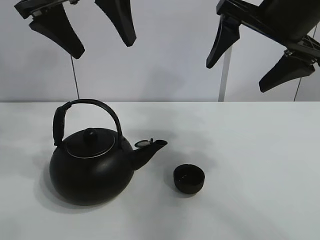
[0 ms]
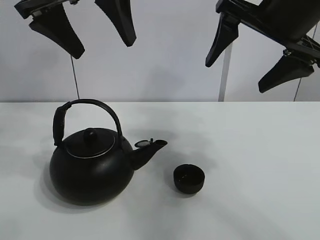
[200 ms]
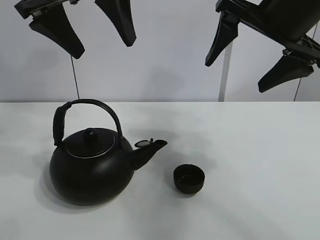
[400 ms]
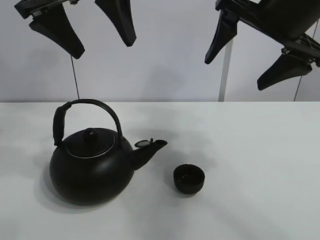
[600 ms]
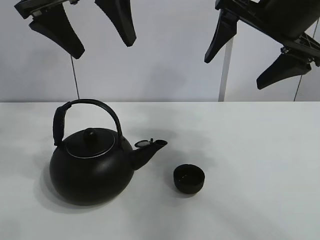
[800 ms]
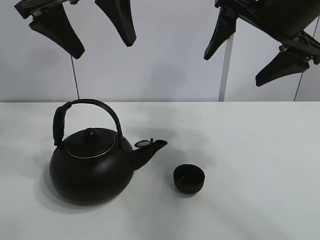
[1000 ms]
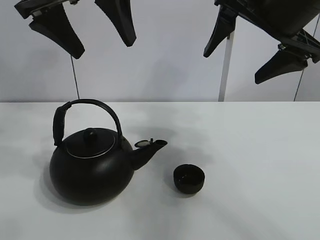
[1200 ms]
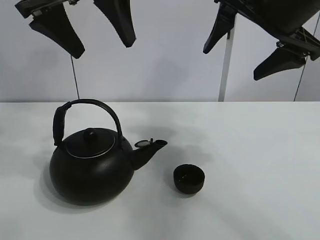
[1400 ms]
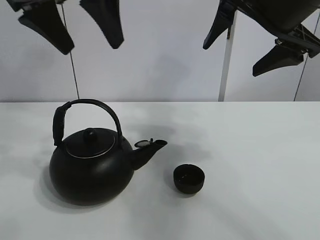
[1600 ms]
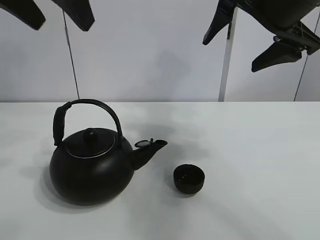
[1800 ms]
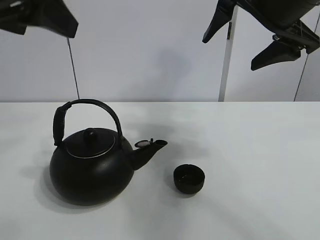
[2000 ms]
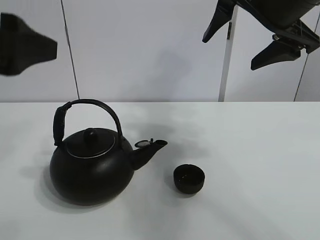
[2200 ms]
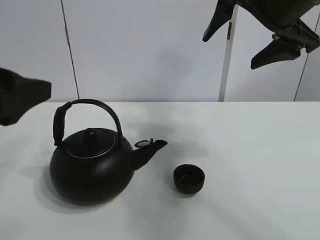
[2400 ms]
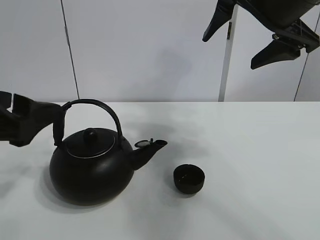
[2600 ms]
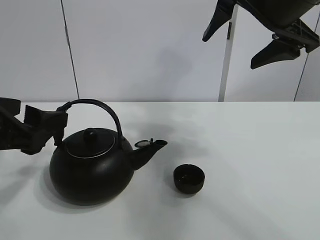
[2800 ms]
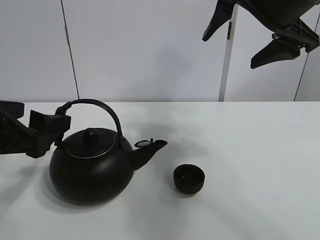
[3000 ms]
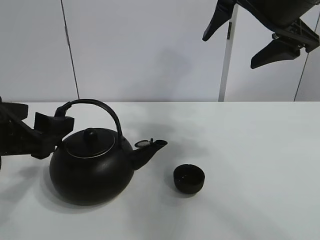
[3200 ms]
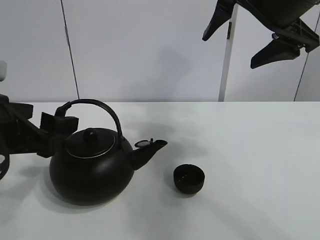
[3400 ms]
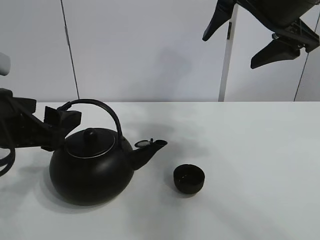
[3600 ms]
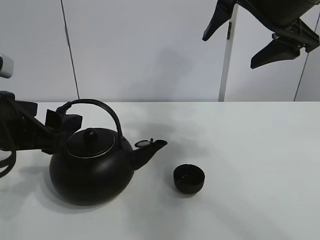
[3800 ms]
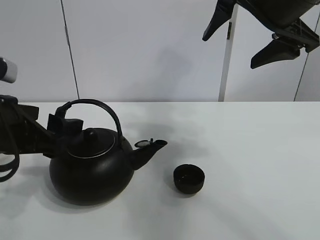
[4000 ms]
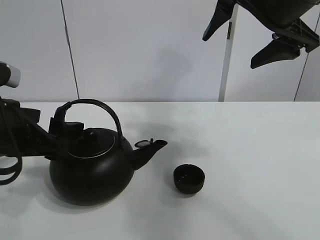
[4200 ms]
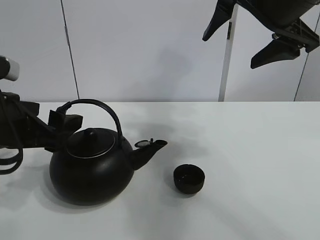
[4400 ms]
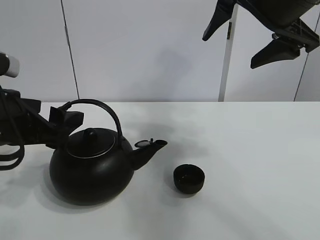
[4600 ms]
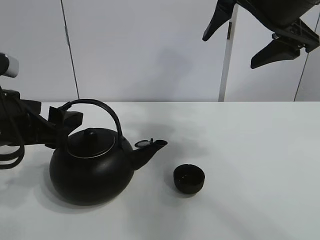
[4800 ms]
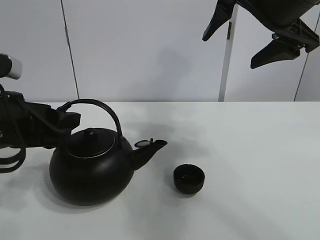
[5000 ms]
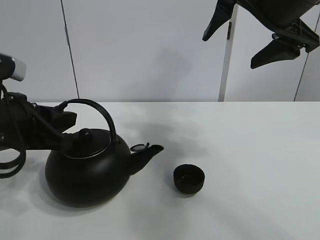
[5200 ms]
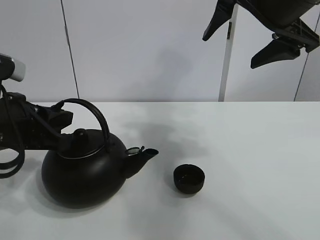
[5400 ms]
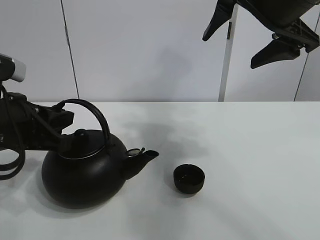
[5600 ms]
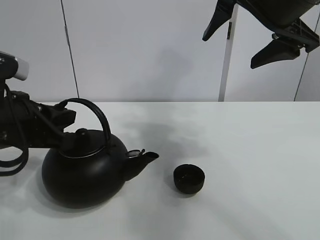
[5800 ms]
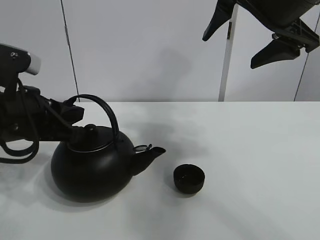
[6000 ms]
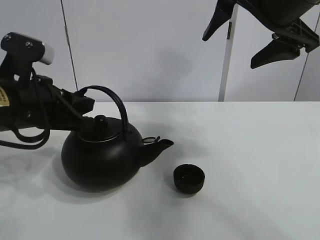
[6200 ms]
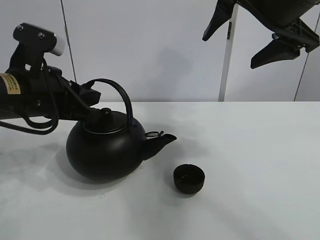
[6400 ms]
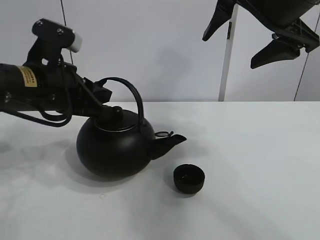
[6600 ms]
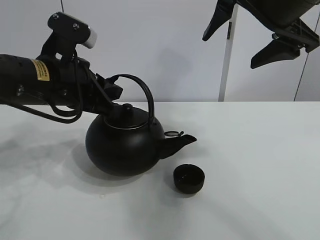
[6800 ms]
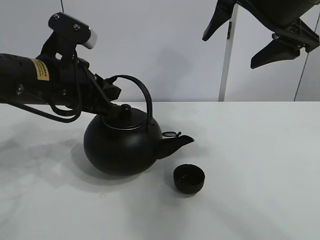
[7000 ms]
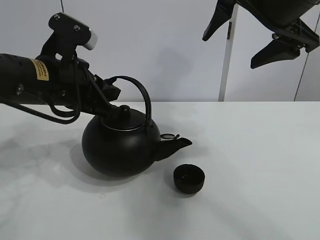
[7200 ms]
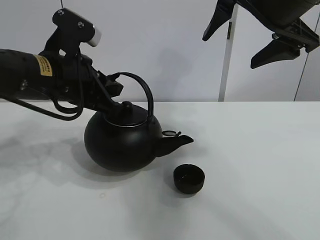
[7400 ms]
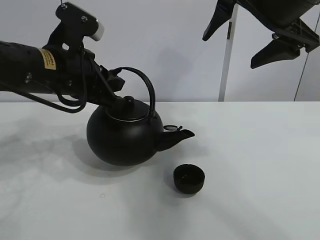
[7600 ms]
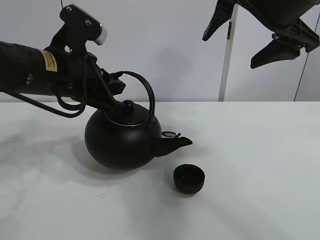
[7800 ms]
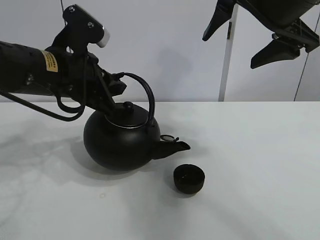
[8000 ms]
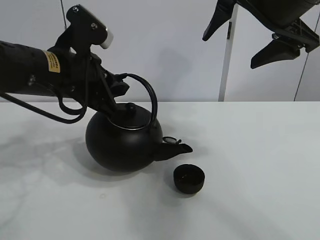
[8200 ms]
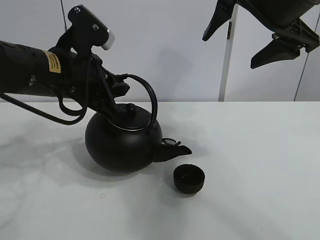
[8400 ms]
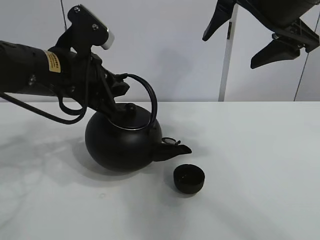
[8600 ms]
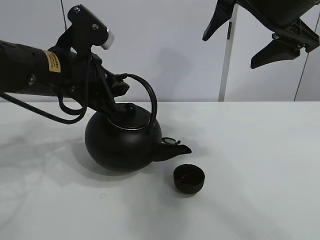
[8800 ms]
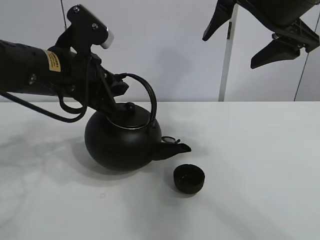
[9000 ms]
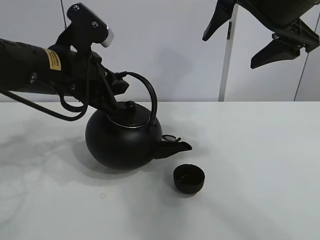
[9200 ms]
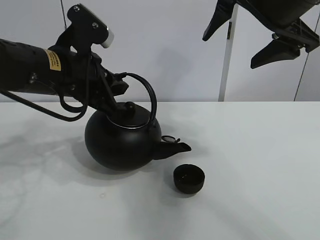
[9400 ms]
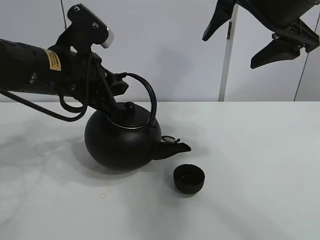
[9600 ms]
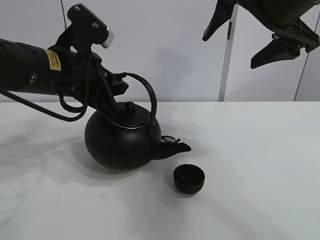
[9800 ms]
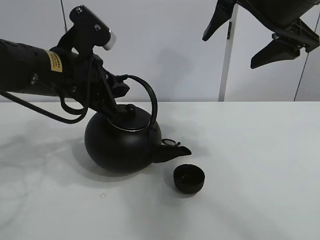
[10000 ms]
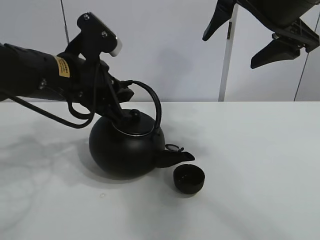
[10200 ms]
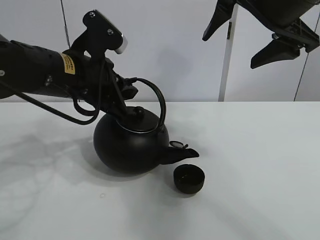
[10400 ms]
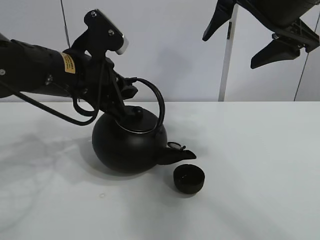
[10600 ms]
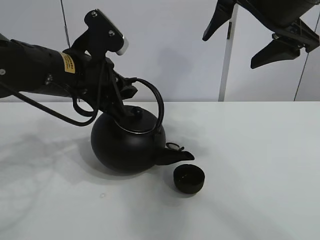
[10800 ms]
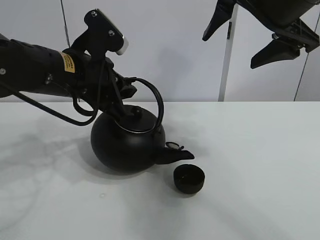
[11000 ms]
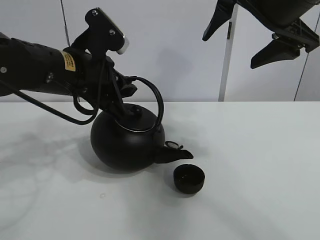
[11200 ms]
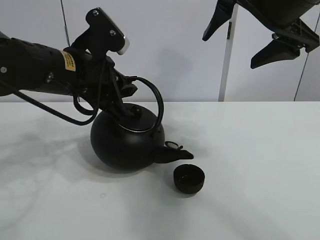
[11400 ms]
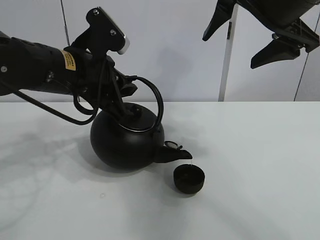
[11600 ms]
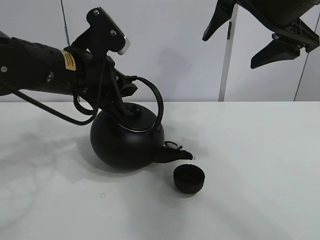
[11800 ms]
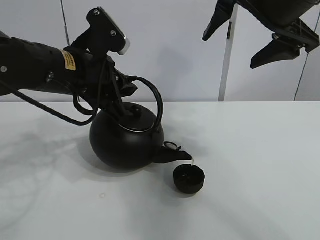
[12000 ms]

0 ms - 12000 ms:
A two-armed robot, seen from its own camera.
Task of the whole recording: pour tea into the teacup.
Step, 0 ms - 5200 ms: Pick up the teapot with the left gripper.
0 ms - 1600 ms: The grippers stay close to where they were, moving slightly.
1600 ms - 3000 ms: The left gripper goes approximately 25 cm downward, backward and to the left.
3000 ms - 4400 ms: The grippers move only a little.
4400 ms - 6000 ms: The left gripper closes up.
6000 ms - 7600 ms: The left gripper moves to the right and forward, about 10 cm.
7600 ms - 12000 ms: The grippers move only a little.

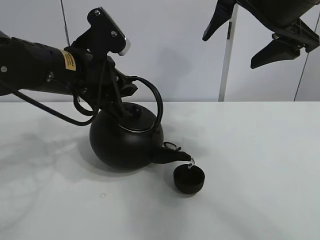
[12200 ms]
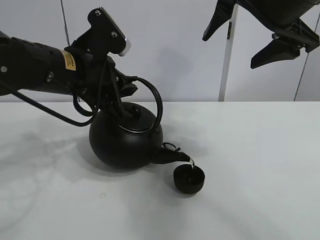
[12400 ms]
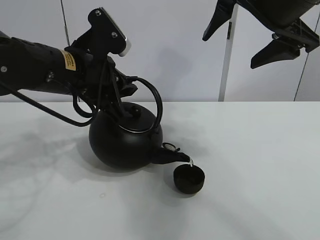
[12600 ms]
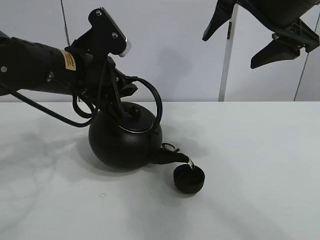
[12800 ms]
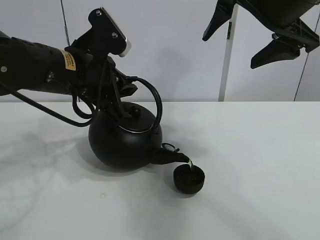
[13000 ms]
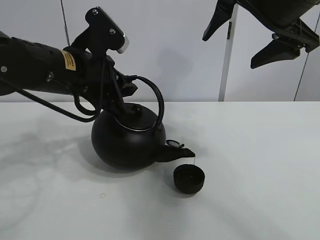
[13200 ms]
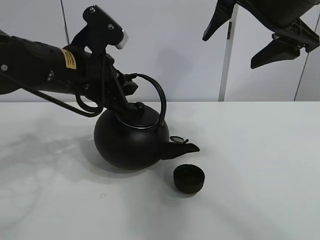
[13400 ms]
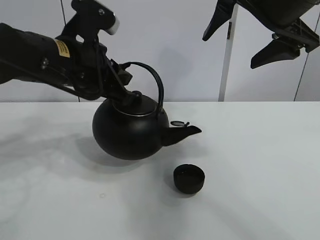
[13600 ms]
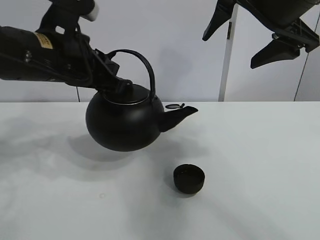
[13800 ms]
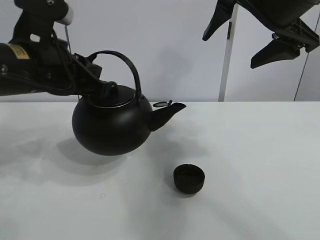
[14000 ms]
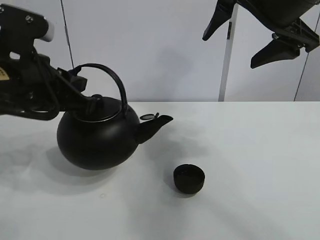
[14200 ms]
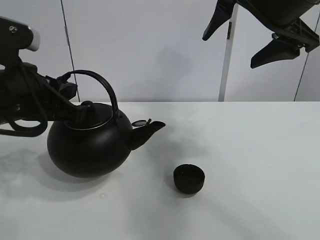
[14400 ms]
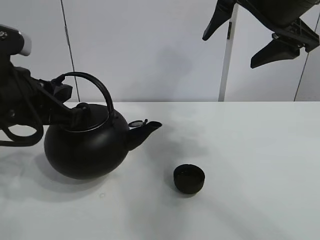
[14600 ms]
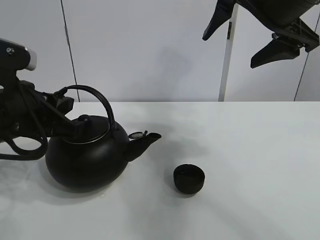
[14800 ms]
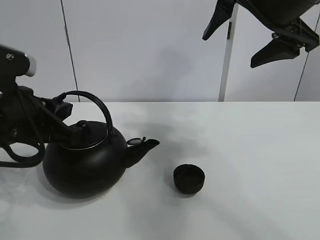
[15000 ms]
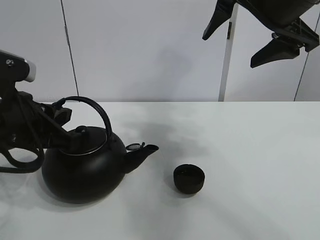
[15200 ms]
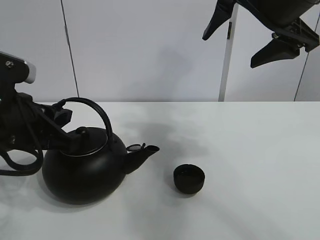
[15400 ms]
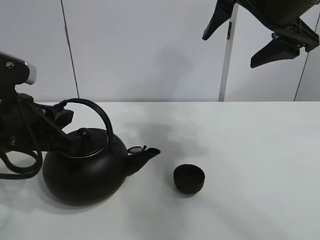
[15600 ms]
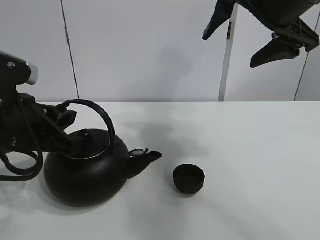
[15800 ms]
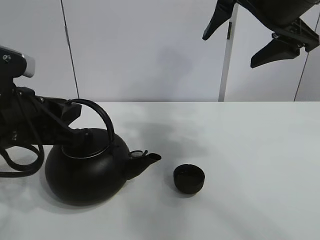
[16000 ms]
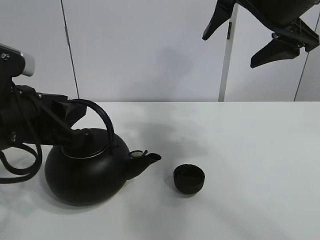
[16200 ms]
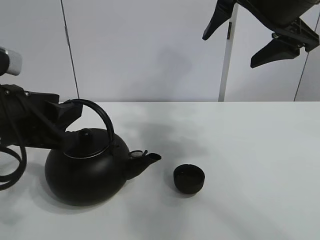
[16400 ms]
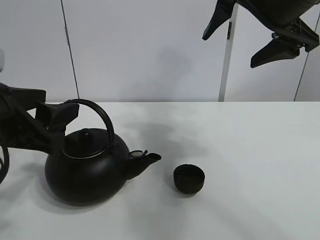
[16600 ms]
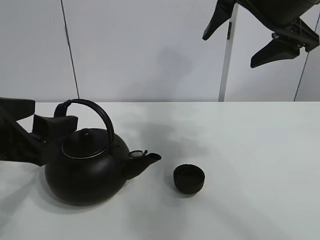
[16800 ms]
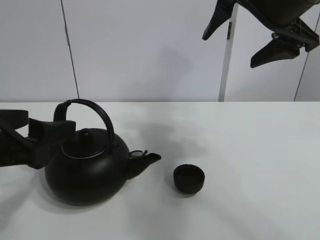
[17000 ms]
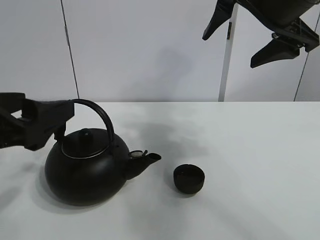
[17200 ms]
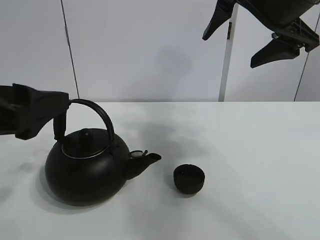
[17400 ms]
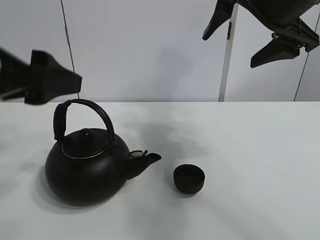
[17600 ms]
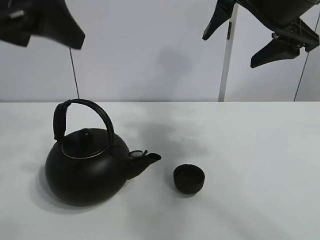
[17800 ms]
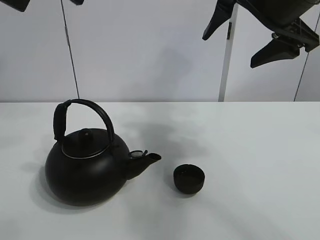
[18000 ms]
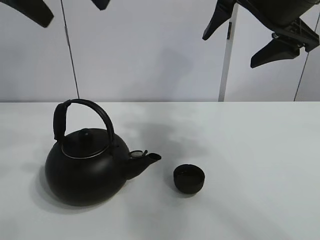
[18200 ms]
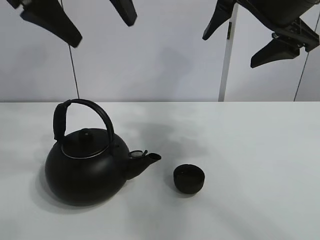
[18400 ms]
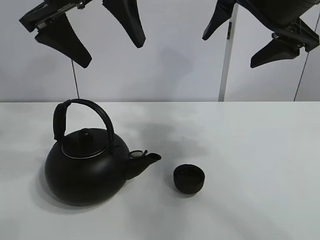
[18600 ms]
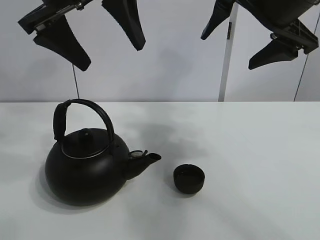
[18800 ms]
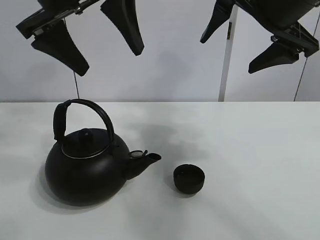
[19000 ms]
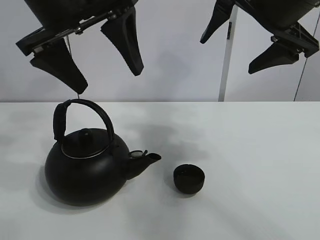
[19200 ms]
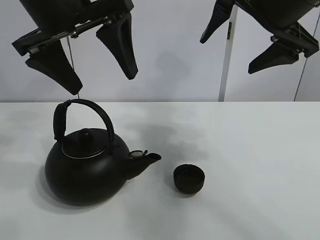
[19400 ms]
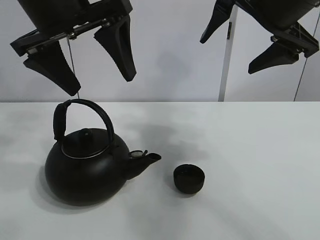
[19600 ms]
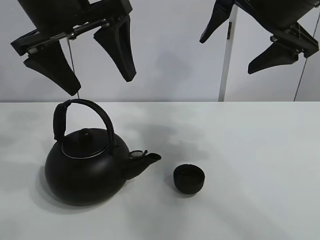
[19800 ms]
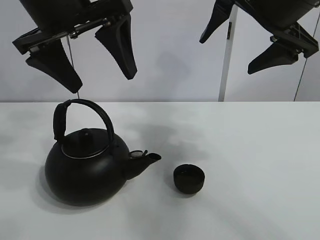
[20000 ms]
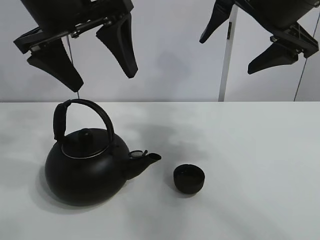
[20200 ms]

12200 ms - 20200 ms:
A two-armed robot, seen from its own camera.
Task of the whole recording: pour tea into the teacup.
13800 ms - 15400 ms: The left gripper heads downward, backward and to the left, covering about 10 cm.
15400 ms - 17000 ms: The left gripper travels backward by roughly 5 cm, and opens.
17000 ms - 18600 ms: The left gripper moves upward, forward and to the right, about 25 cm.
18600 ms - 20200 ms: The grippers stay close to where they were, moving slightly.
